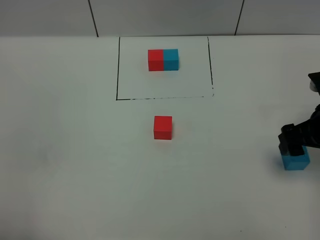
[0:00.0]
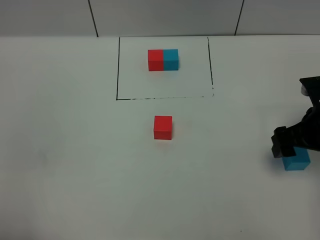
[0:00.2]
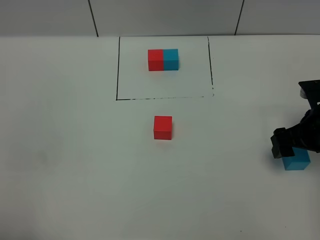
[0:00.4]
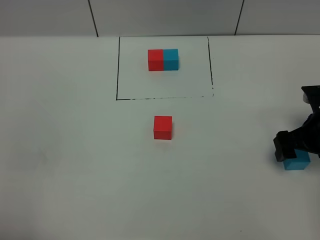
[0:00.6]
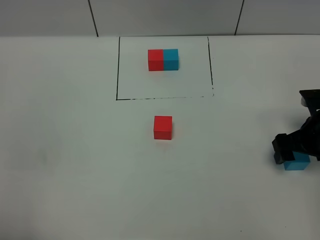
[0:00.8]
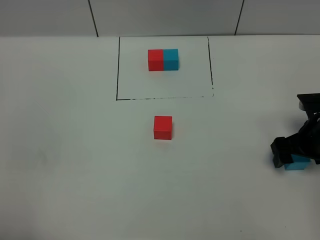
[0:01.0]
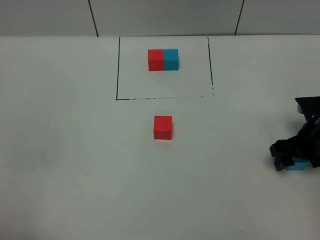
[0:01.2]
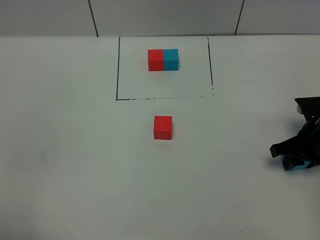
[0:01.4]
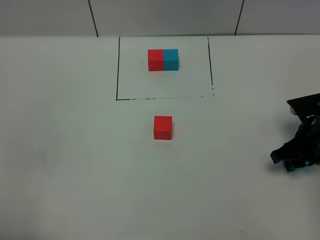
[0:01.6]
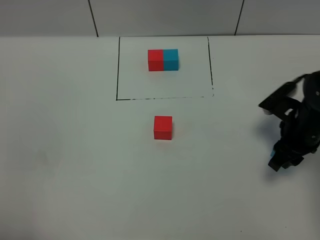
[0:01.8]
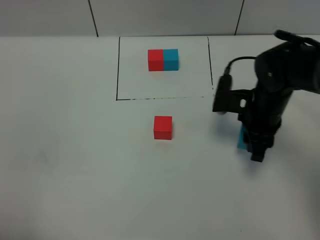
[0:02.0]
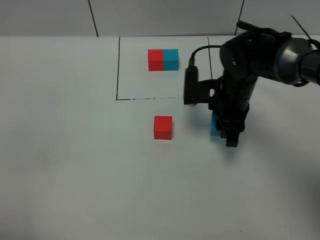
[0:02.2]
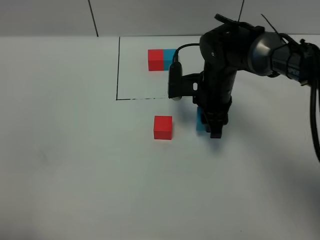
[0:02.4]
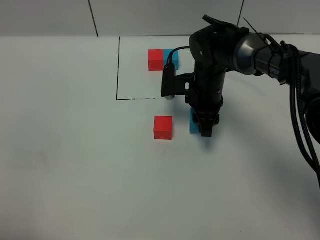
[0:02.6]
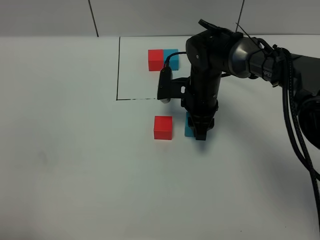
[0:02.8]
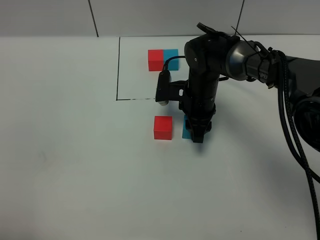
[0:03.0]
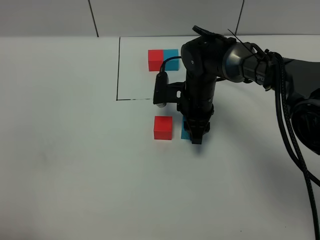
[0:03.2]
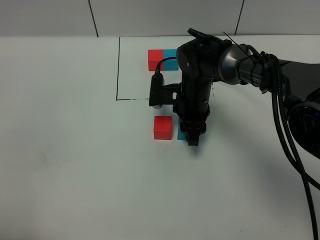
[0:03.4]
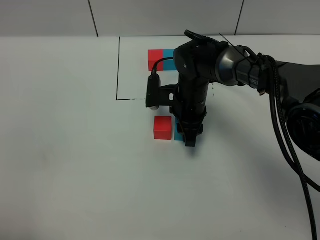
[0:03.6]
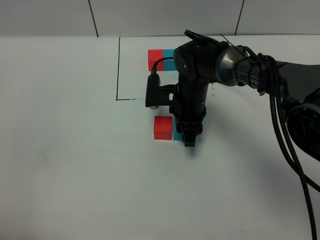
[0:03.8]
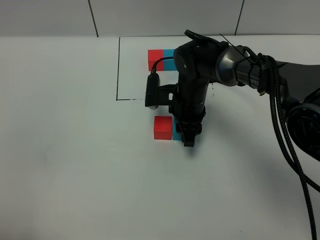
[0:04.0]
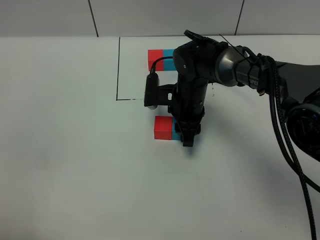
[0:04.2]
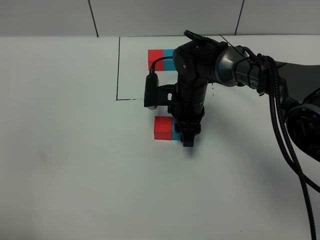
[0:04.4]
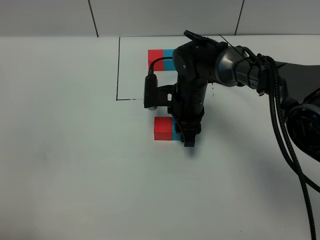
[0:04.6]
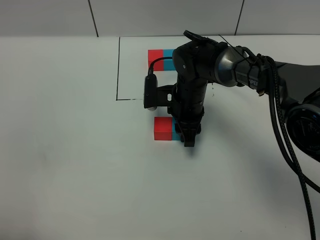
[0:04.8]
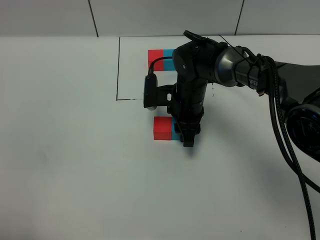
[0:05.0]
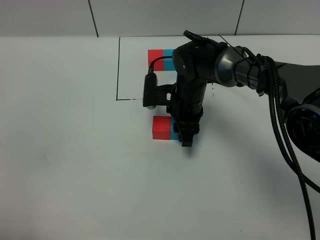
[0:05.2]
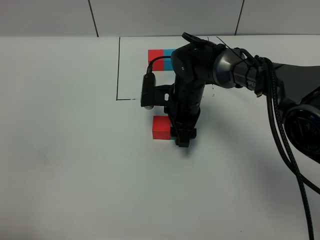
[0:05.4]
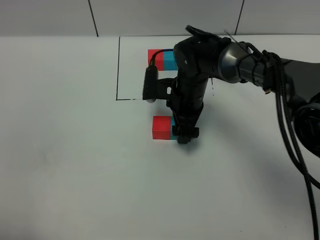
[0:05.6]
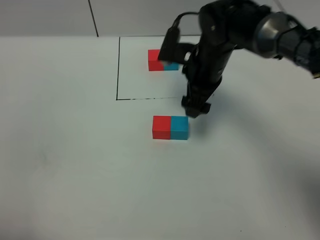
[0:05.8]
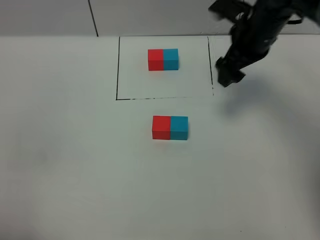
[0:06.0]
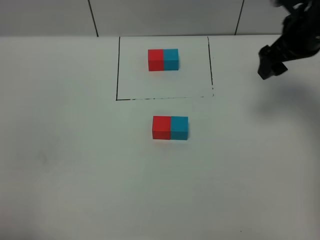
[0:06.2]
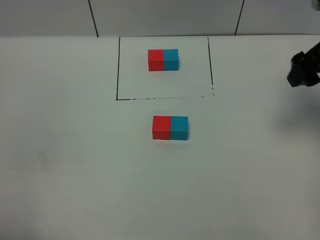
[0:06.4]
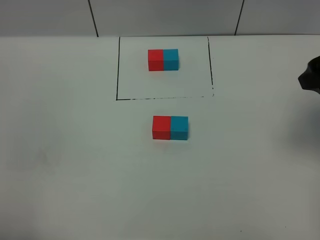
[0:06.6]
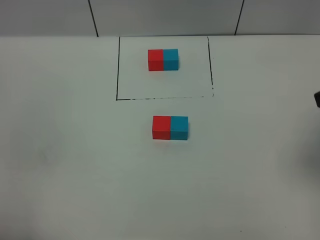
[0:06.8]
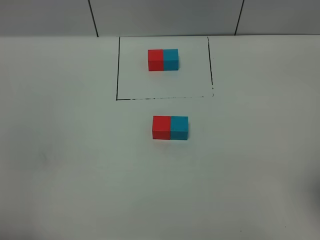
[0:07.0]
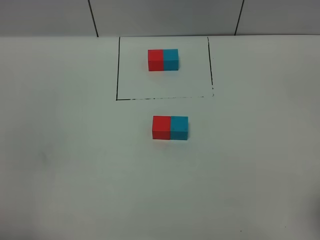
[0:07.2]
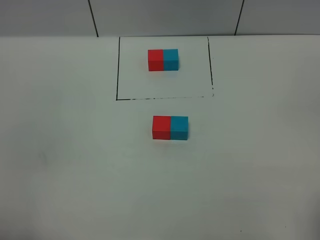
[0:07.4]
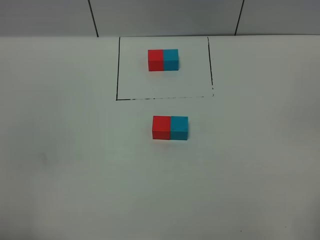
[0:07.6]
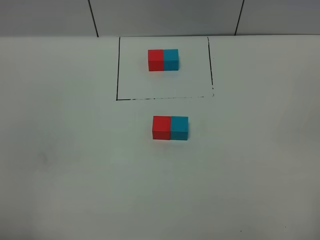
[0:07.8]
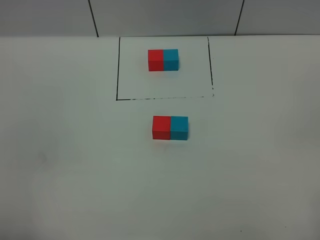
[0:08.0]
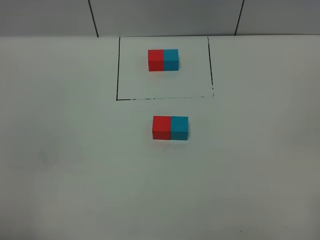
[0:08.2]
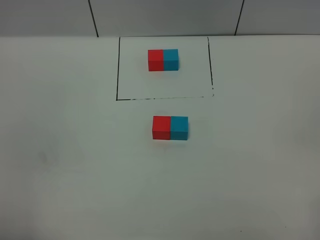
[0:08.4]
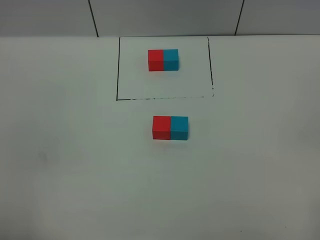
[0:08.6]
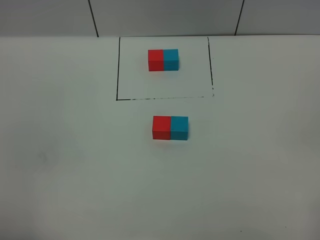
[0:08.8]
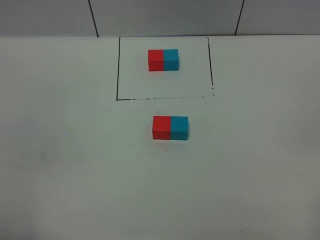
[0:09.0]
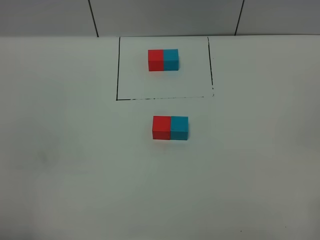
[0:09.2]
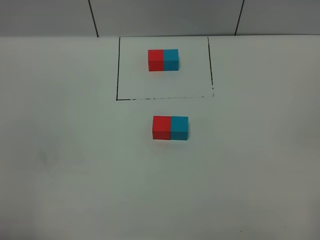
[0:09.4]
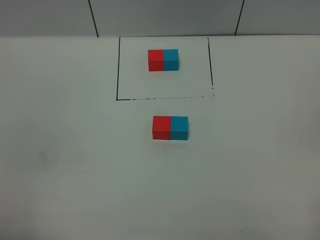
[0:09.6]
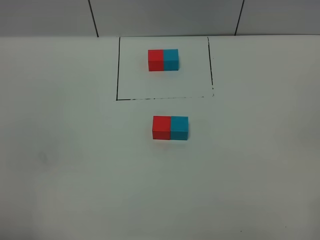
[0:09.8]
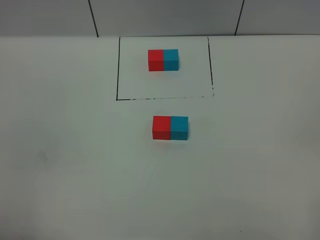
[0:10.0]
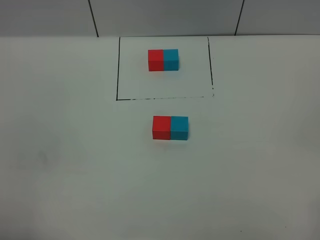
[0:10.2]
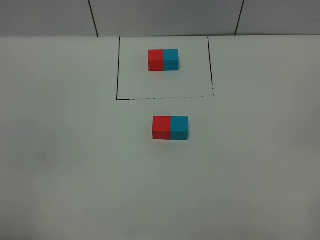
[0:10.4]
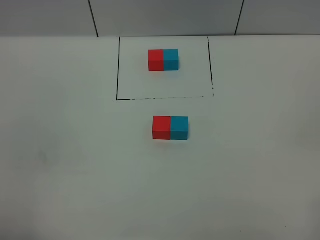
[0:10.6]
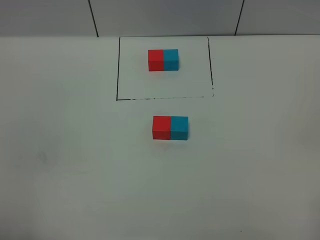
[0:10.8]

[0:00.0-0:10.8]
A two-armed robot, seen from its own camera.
Task of the whole recording: According to the building block template in front, assemble the scattered blocks together.
Step, 0:00.0 to 0:05.6: Put the blue cube on the right of the red cube.
0:00.0 to 0:01.6: The right gripper travels downward by roughly 10 cm, and closes up.
0:01.6 to 0:03.0: The right gripper moves to the left and forward, roughly 25 cm.
0:03.0 to 0:04.6: The grippers move only a little.
0:04.6 to 0:06.2: The right gripper shifts about 25 cm to the right and upward, and opens its fingers.
0:06.2 to 0:07.8: The right gripper shifts some 35 cm backward.
0:09.2 to 0:10.8: Both grippers stay about where they are.
